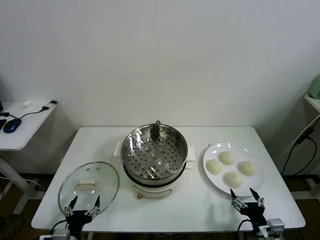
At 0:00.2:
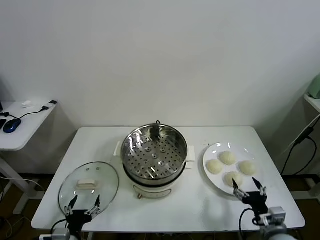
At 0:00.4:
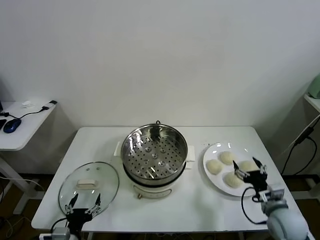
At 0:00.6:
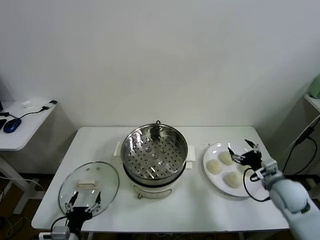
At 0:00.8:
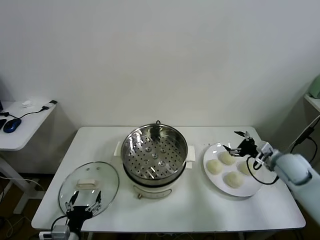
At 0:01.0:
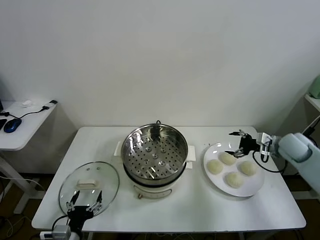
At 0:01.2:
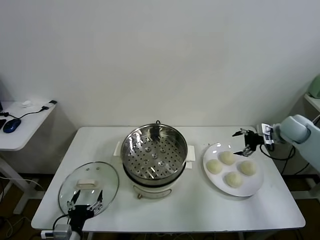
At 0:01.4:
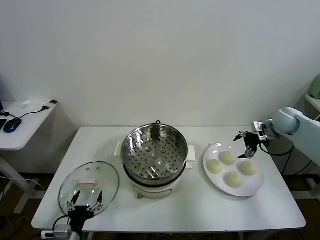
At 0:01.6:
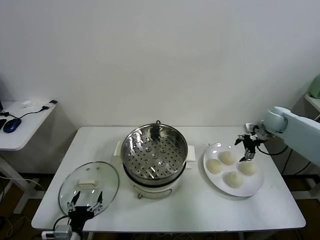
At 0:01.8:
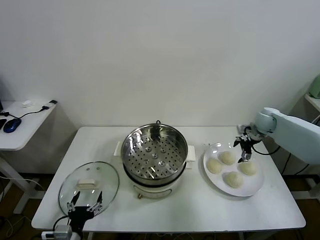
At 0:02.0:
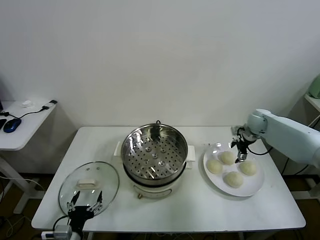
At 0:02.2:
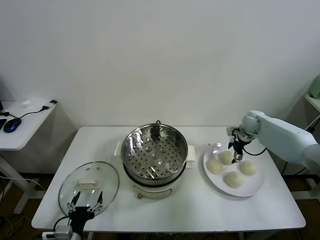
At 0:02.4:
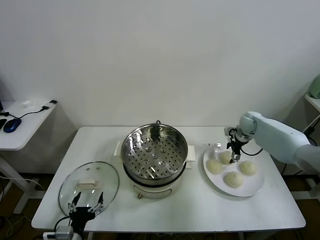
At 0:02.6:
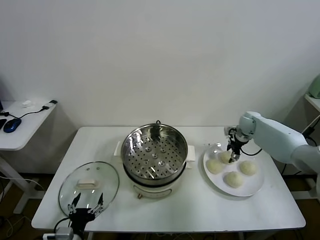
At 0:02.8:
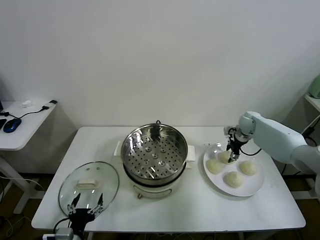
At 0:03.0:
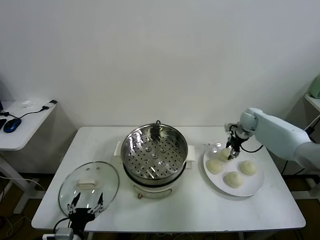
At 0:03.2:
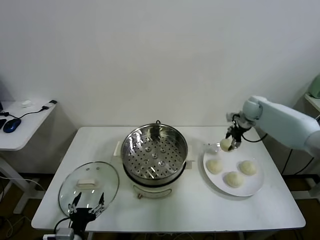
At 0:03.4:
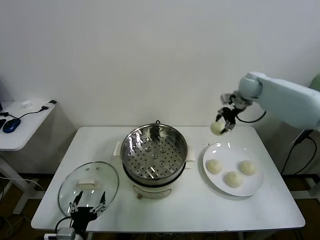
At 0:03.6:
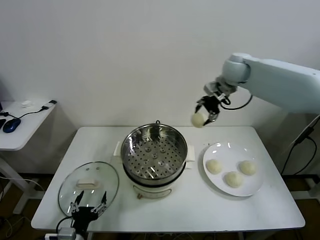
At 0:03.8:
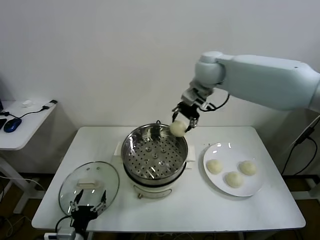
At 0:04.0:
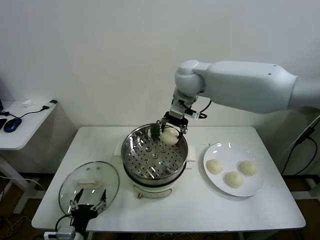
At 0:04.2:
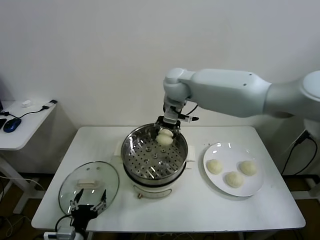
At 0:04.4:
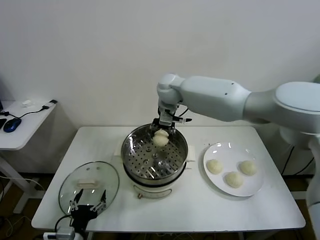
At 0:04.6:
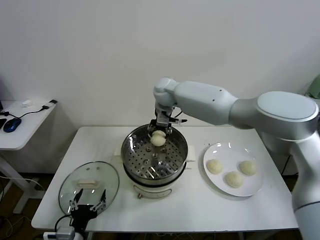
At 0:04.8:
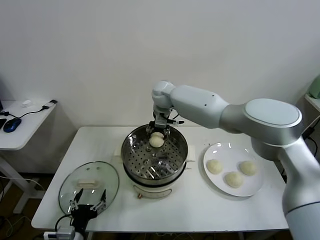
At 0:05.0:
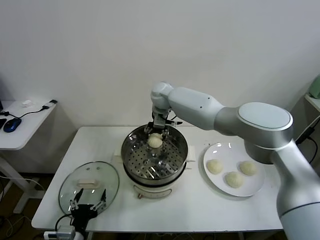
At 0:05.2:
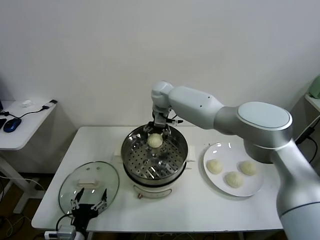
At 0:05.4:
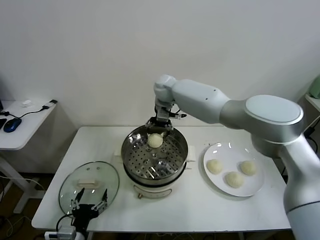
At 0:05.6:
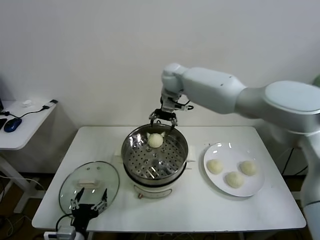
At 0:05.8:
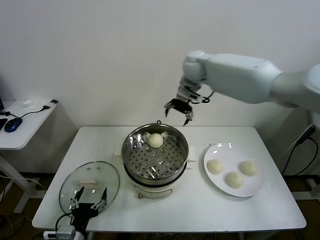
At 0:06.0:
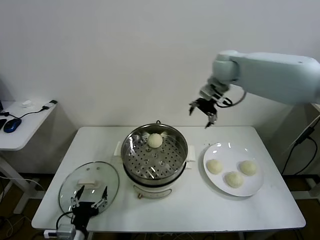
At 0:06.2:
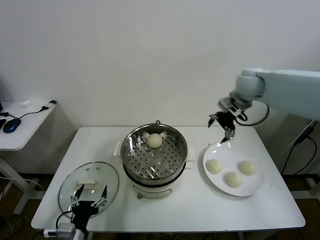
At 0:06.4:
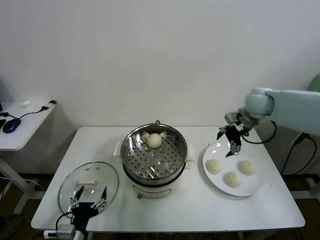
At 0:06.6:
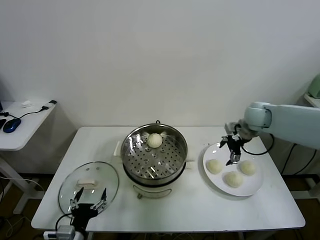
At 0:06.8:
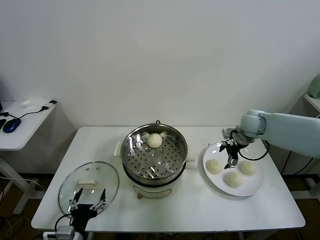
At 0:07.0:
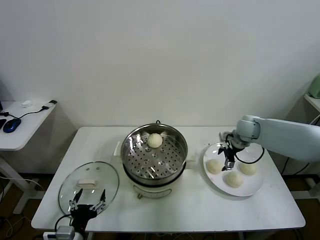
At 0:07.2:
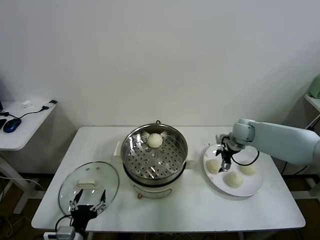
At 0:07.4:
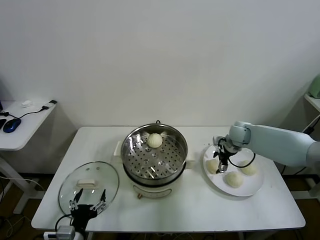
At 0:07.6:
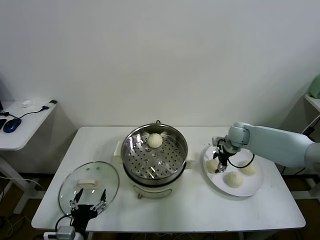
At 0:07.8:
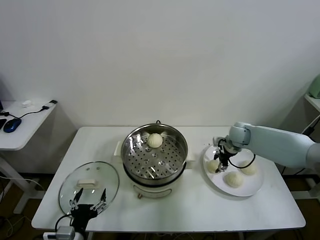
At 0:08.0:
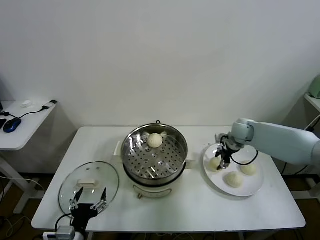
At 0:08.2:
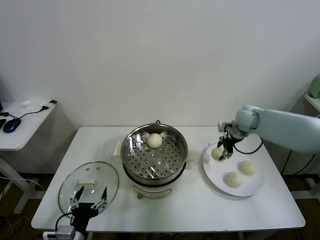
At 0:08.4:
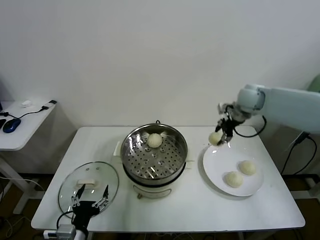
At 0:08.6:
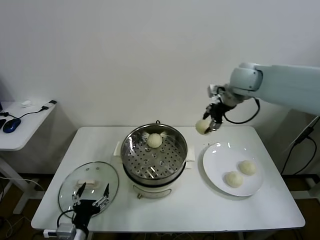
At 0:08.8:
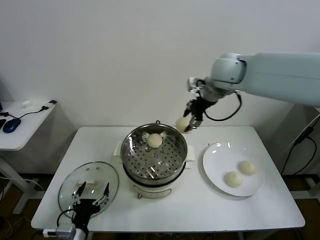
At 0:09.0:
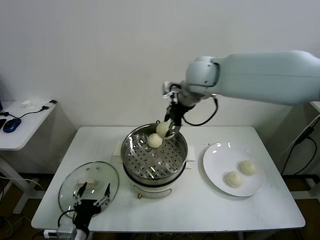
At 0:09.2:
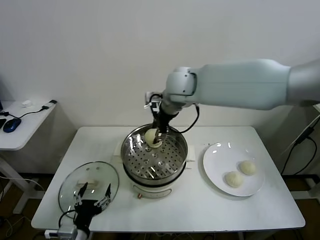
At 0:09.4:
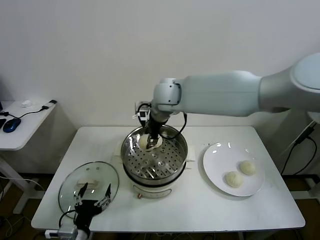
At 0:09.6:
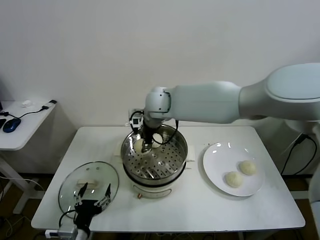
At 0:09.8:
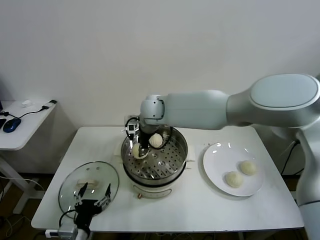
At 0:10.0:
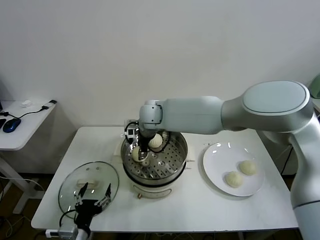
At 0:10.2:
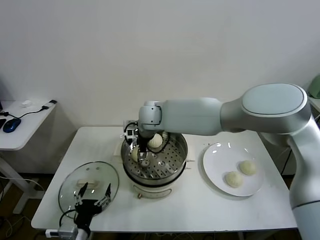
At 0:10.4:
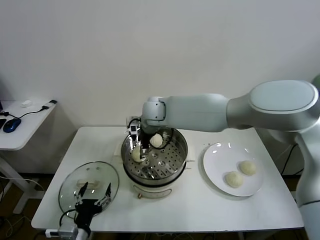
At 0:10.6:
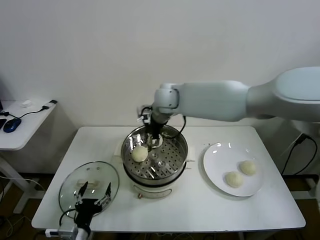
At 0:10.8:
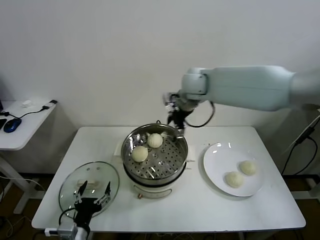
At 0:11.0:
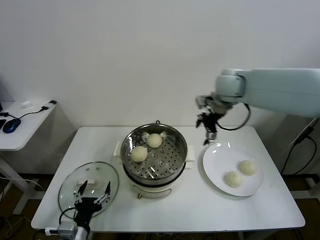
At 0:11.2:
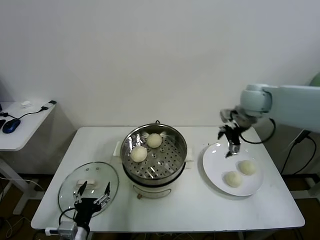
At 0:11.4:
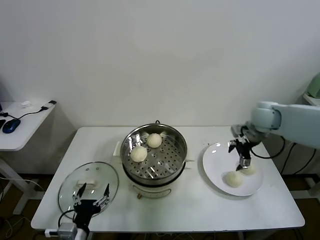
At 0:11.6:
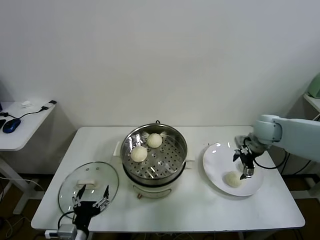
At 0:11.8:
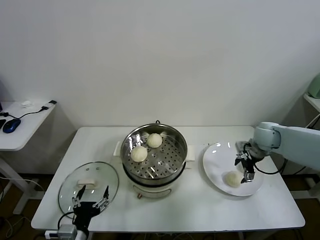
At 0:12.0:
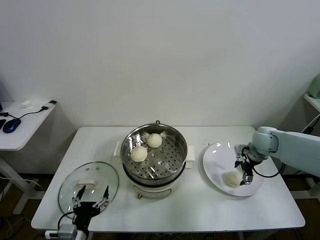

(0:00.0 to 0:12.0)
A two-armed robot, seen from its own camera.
Task of the whole recording: take steamed baozi put them in steamer.
Step, 0:00.0 - 0:02.6: Grasp the baozi in the plate with right gripper.
Step, 0:02.8 - 0:05.2: Place the baozi on the steamer with right gripper.
Step, 0:05.4 - 0:07.6: Grasp the baozi in the plate with right gripper.
Step, 0:07.8 - 0:10.2: Place the baozi on the steamer with right gripper.
0:01.6 - 0:03.0: The right gripper shifts some 5 cm forward, and closes.
0:03.0 - 0:04.4: The right gripper moves to the left, some 35 cm.
0:04.4 - 0:06.0: The right gripper shifts some 20 cm to the right, and opens.
0:06.0 - 0:07.6: The right gripper heads downward, covering some 25 cm, and closes up.
0:07.6 - 0:09.0: The right gripper goes some 35 cm upward and to the left, and closes up.
0:09.0 - 0:10.4: The right gripper moves downward and to the left, approximately 15 cm, and opens up.
0:10.4 - 0:12.0: The right gripper moves to the right, about 40 cm.

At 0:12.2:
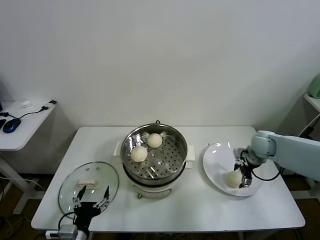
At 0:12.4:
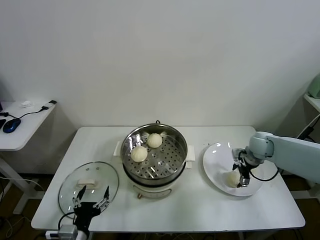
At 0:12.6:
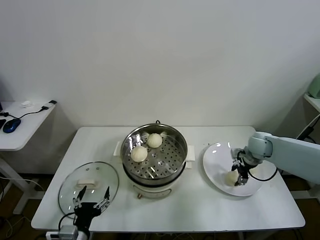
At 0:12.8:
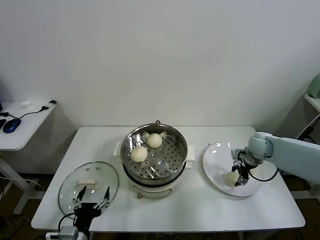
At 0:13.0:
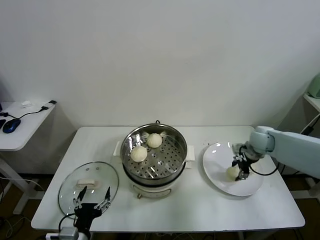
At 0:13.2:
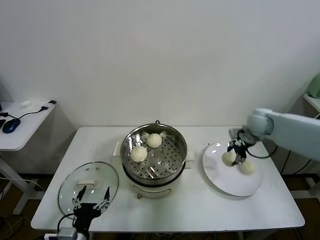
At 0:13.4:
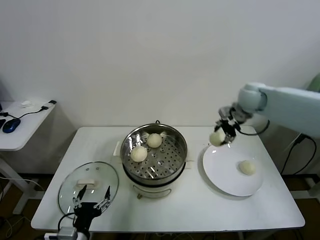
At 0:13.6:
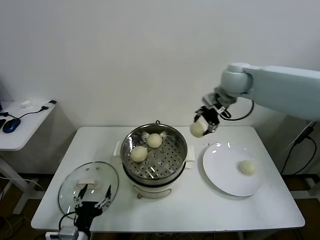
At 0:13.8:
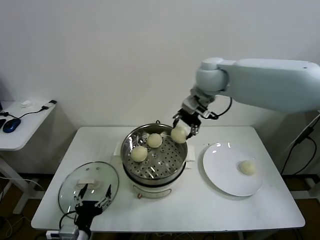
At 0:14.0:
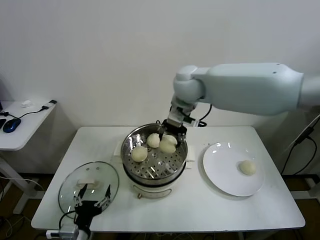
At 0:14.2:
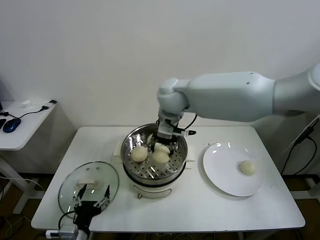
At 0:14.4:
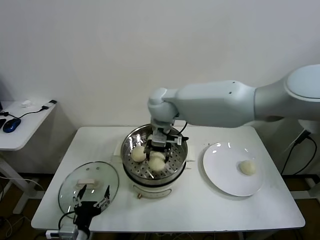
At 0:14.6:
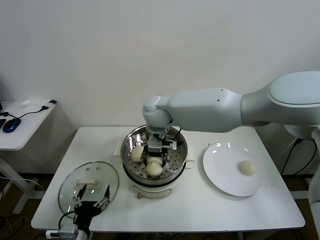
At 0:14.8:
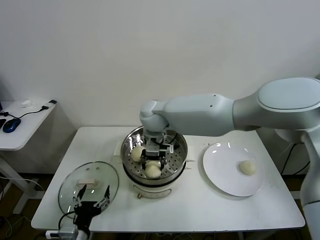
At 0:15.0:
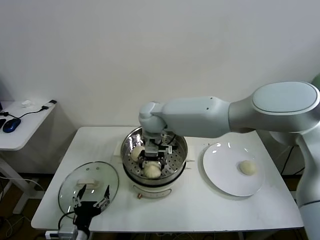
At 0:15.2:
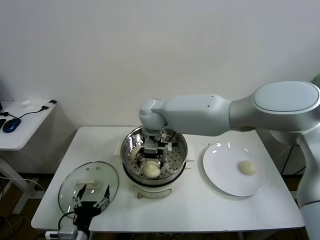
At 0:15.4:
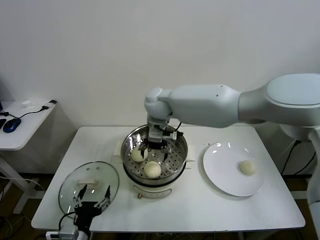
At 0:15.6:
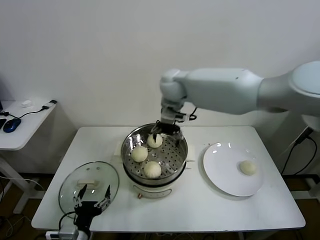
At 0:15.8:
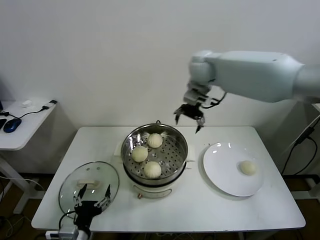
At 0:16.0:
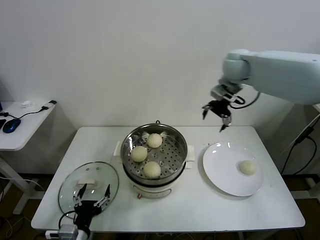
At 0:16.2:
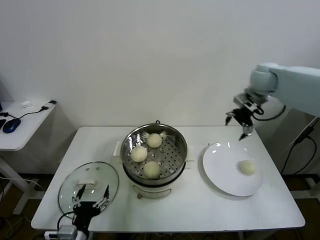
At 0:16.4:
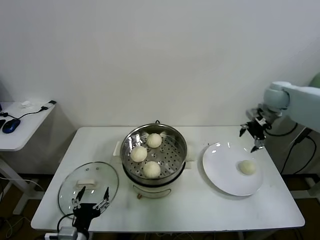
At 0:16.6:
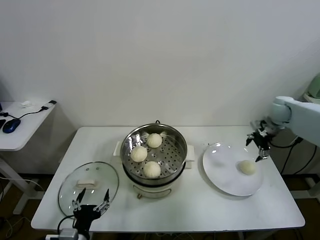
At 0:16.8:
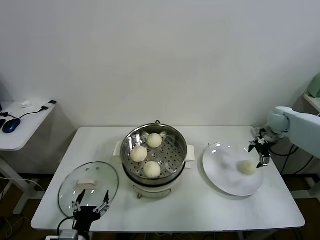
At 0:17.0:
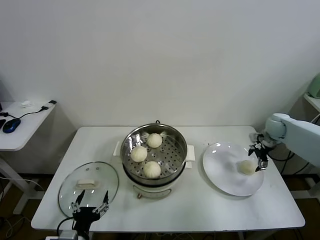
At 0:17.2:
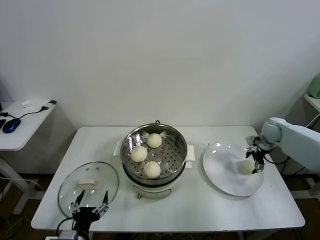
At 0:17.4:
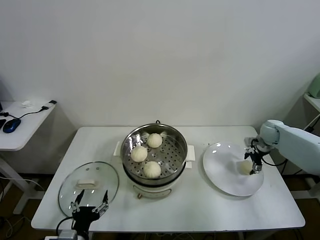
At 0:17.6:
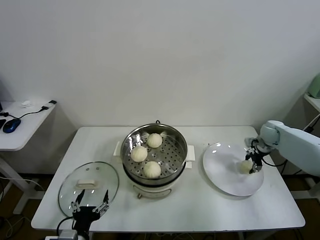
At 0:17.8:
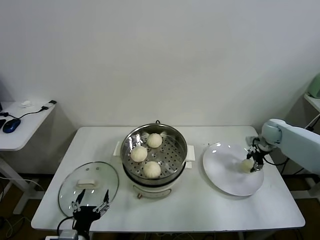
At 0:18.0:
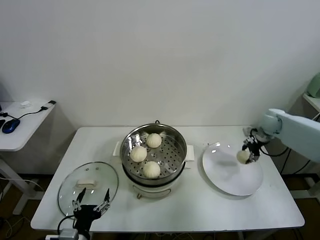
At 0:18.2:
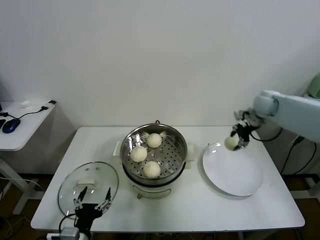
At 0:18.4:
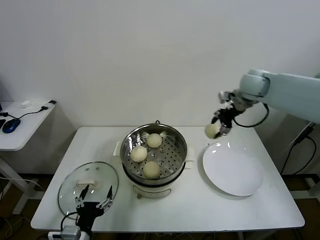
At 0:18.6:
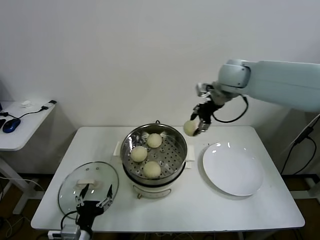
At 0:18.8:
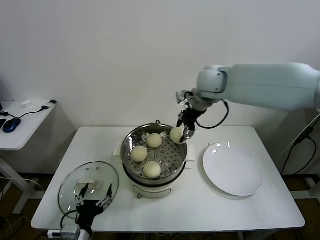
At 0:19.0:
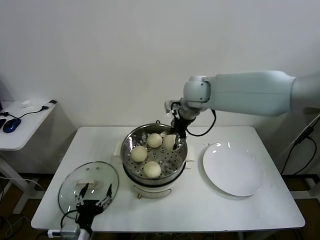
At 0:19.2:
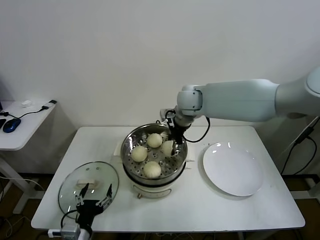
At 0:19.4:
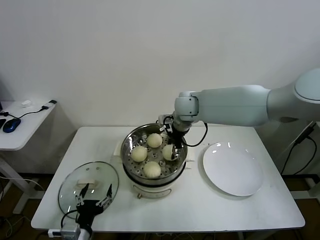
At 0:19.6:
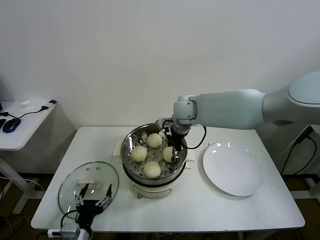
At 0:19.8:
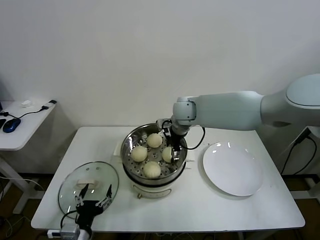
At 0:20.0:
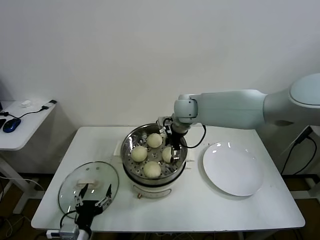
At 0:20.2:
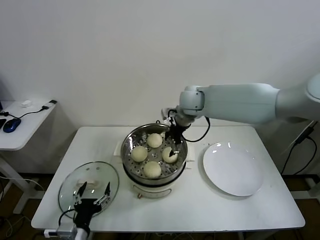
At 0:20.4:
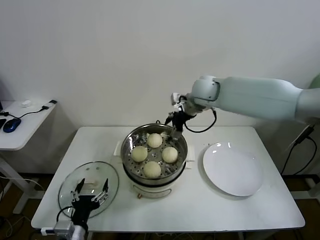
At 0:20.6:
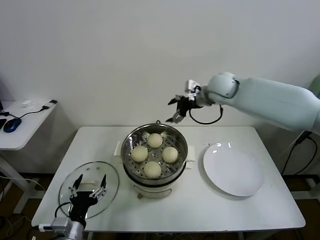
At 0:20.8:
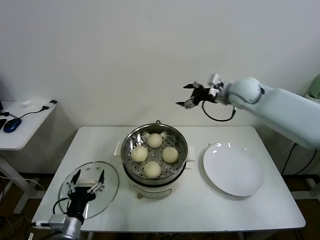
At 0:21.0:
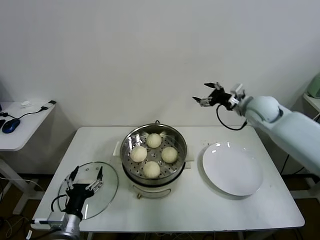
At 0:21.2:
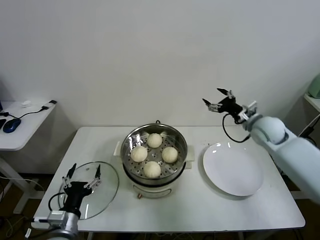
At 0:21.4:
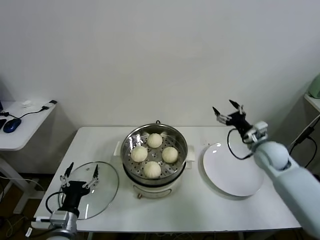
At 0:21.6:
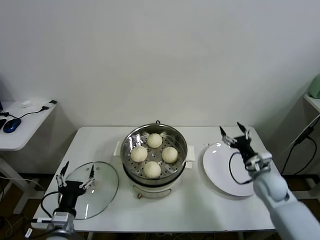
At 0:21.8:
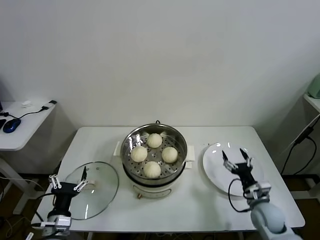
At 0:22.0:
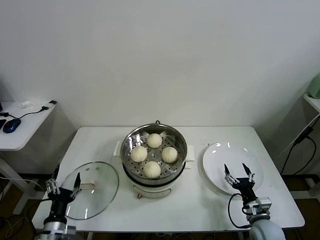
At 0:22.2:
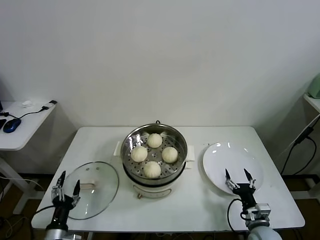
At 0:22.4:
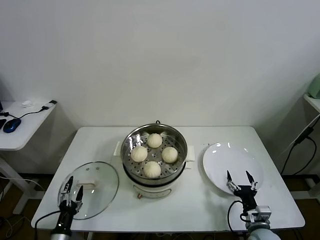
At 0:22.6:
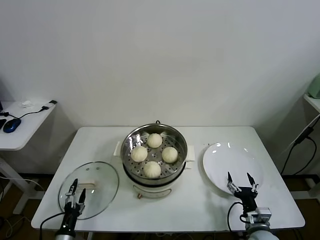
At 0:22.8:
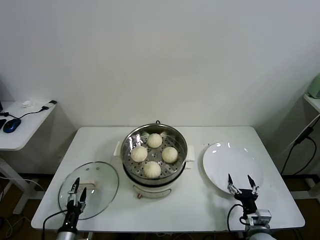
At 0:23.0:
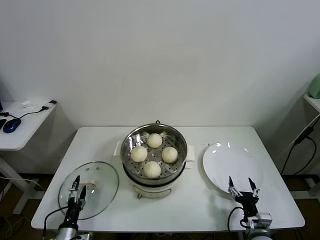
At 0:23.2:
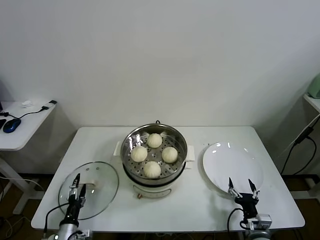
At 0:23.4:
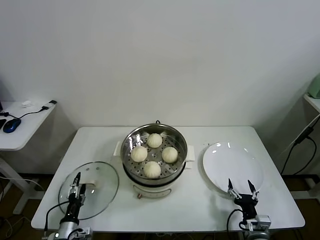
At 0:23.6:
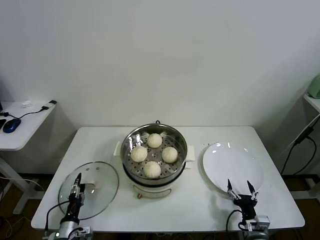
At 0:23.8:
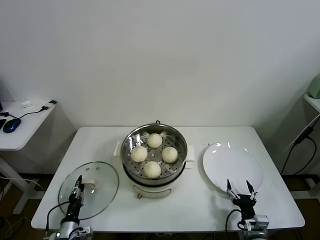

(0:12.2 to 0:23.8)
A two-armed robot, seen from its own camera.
Task of the whole recording: take steamed baozi put them in steamer.
Step, 0:12.6 - 0:15.0: Place the baozi on the steamer with right gripper.
Step, 0:15.2 - 0:17.4: Grasp the baozi in the plate with right gripper.
Step, 0:17.6 - 0:19.8: Place the baozi on the steamer with right gripper.
0:12.2 - 0:13.6: The right gripper moves upward and to the left, about 30 cm, and closes its fingers.
0:13.6 - 0:15.0: The right gripper goes some 25 cm to the left and downward, and opens.
0:15.0 - 0:16.6: The right gripper moves to the right, roughly 50 cm.
0:16.6 - 0:18.0: The right gripper shifts about 5 cm downward, and closes.
0:18.0 - 0:19.4: The right gripper is displaced to the left by some 35 cm.
0:19.4 - 0:21.0: The right gripper shifts some 25 cm to the right, and opens up.
0:21.0 - 0:22.4: The left gripper shifts some 15 cm downward and to the left. Meanwhile the right gripper moves downward and backward, approximately 40 cm.
0:22.4 - 0:23.8: The left gripper goes roughly 5 cm downward, and closes its fingers.
